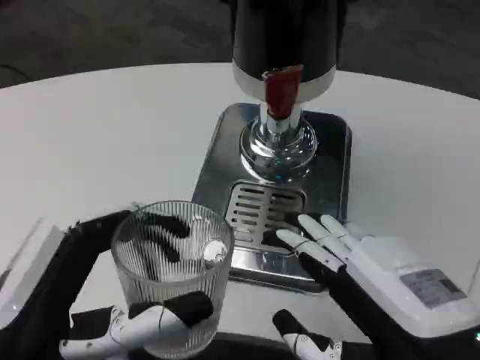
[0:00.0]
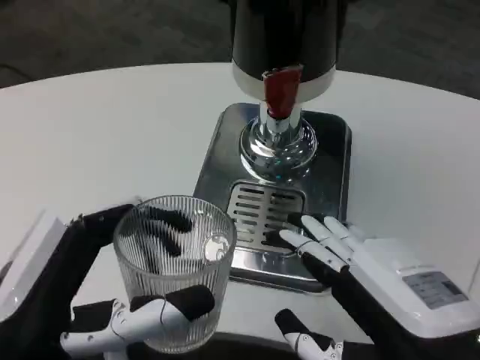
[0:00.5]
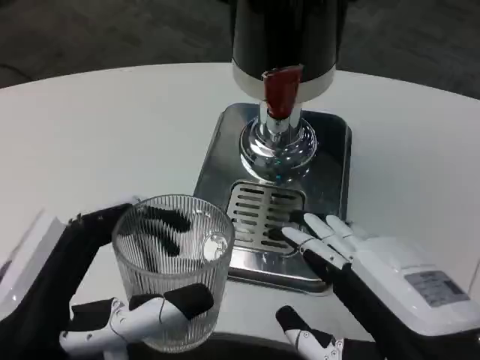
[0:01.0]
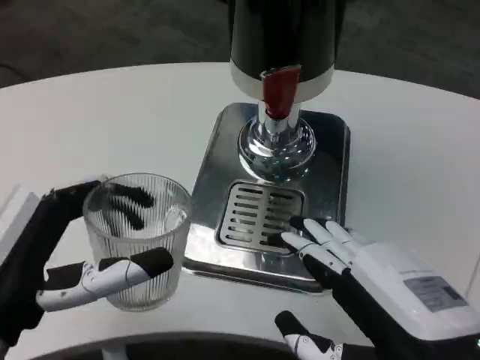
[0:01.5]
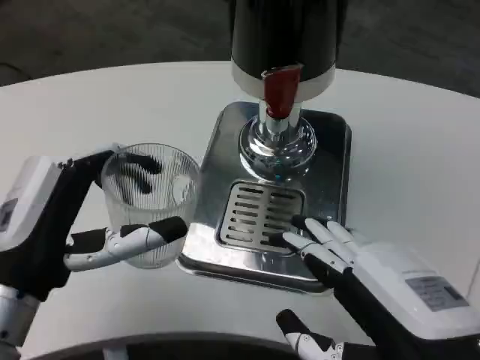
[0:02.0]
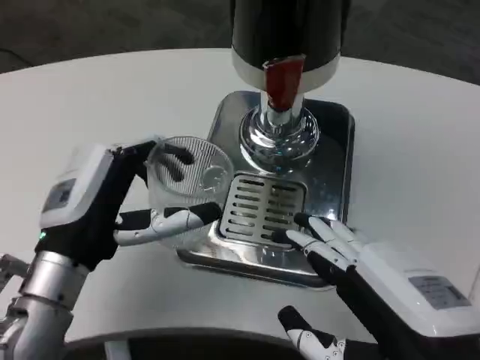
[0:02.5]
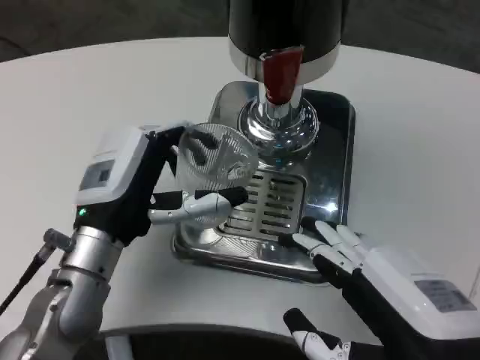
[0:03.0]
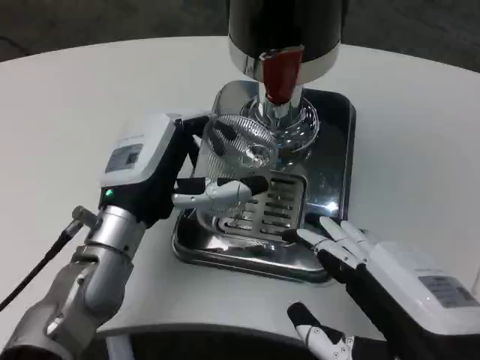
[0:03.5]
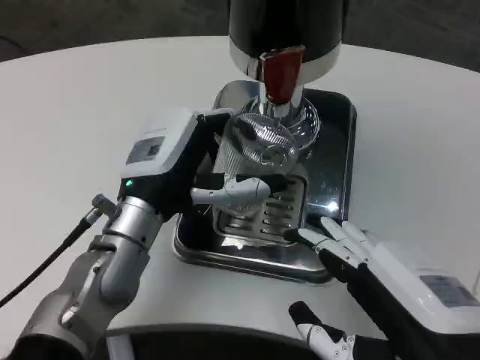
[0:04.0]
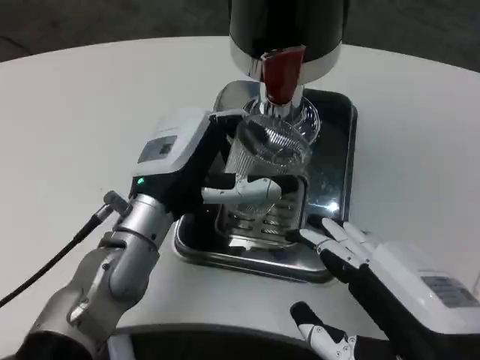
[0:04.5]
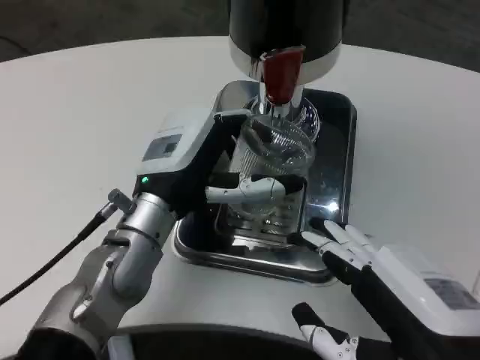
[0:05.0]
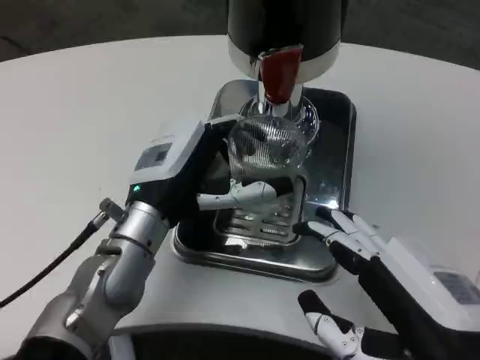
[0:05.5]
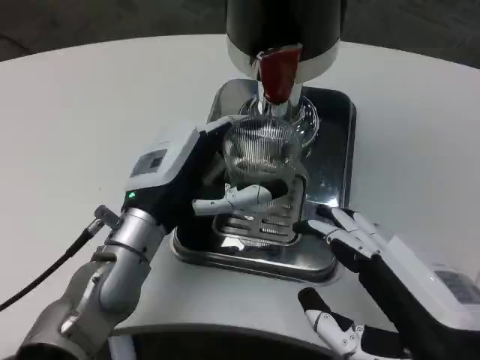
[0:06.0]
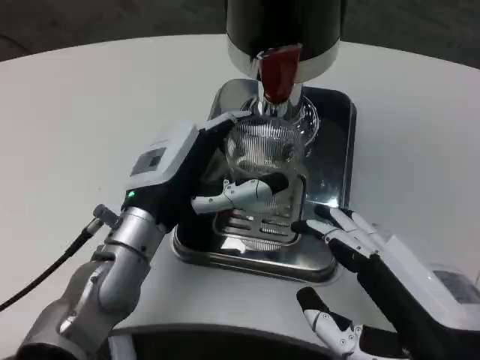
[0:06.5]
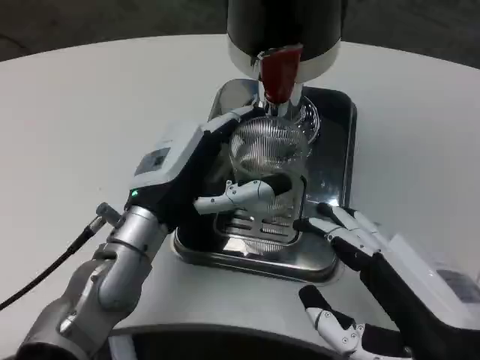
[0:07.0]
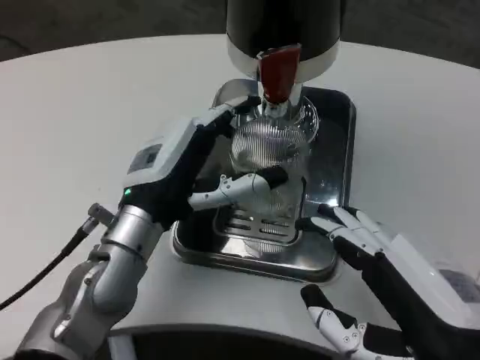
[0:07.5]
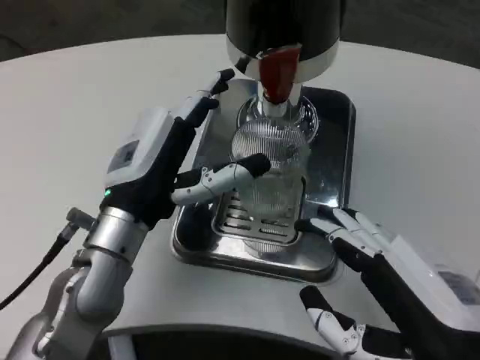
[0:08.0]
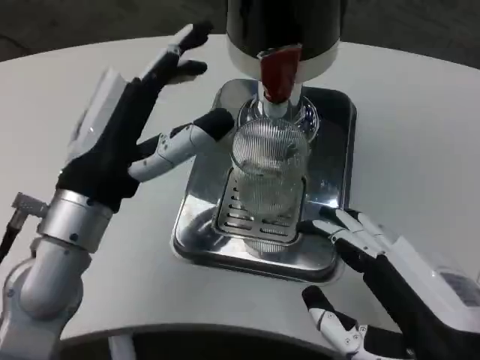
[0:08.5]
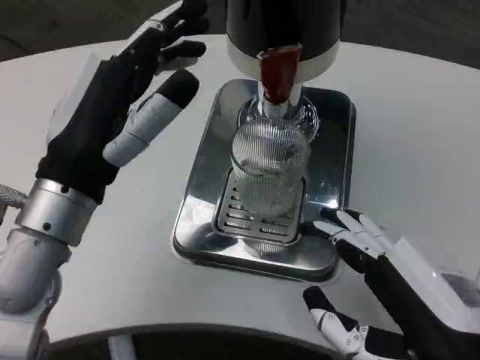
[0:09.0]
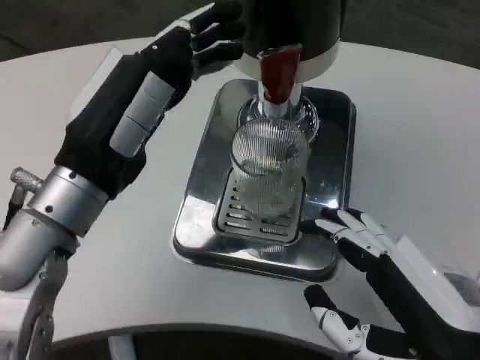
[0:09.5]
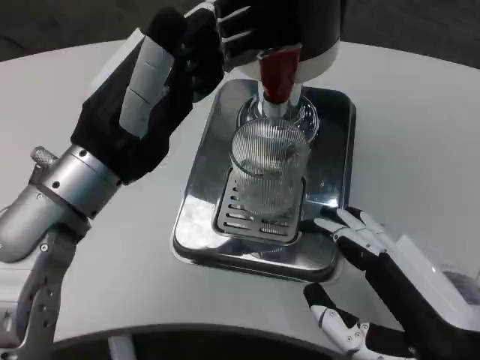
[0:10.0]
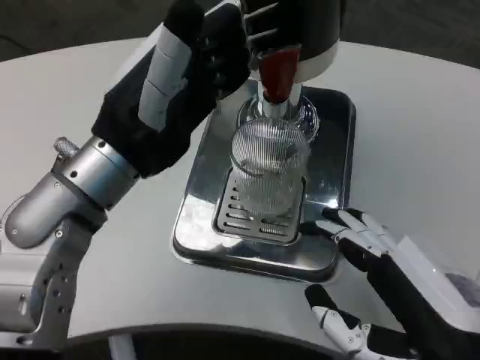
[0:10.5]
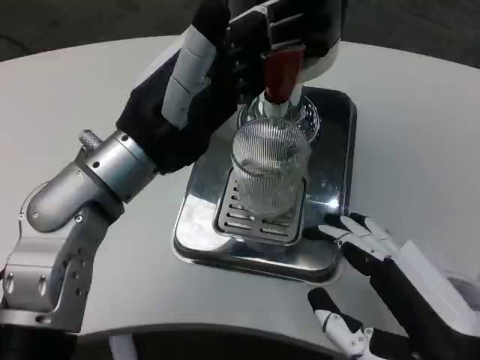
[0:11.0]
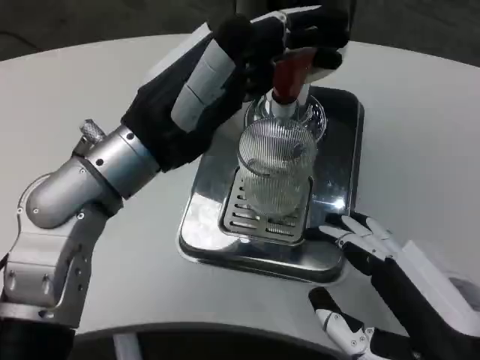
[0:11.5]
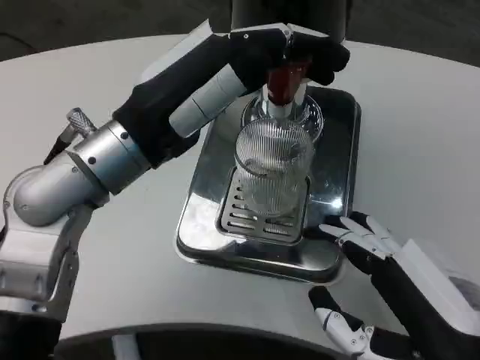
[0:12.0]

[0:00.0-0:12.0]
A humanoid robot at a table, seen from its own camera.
Task of the whole recording: Grasp the cup under the faucet to collect the drink, then remove the cup.
0:00.0 to 0:02.0: The left hand moves forward, roughly 10 cm.
0:02.0 to 0:04.0: The left hand goes about 15 cm forward and to the right.
0:06.0 to 0:08.0: There are only small adjustments of the hands.
0:08.0 to 0:10.0: The left hand goes about 10 cm upward.

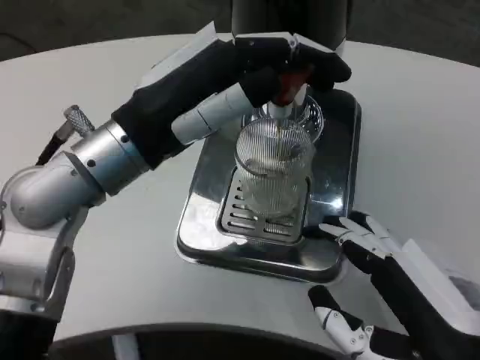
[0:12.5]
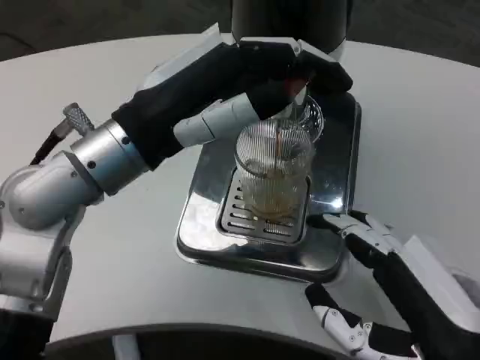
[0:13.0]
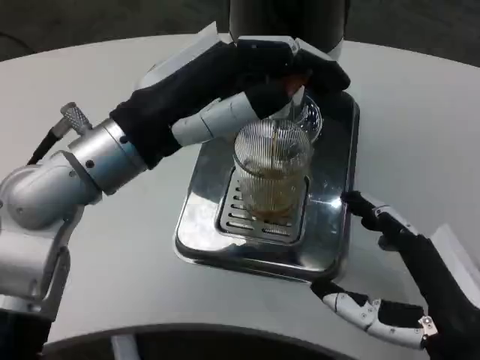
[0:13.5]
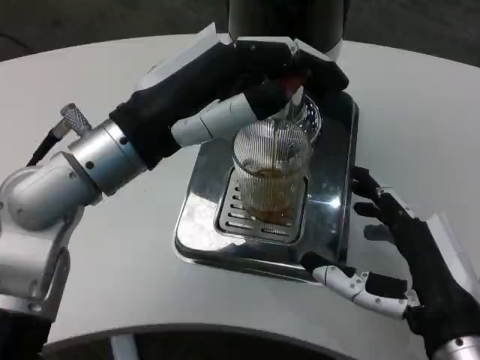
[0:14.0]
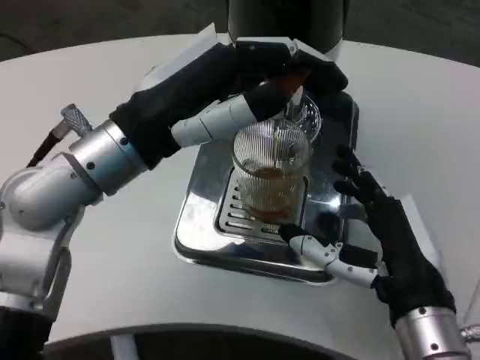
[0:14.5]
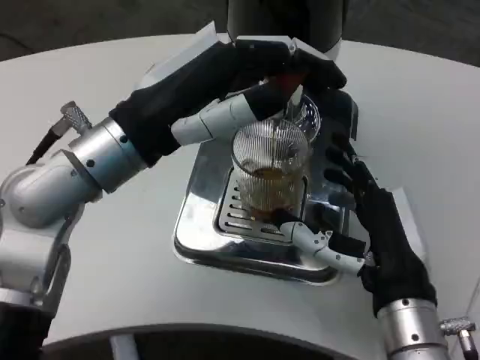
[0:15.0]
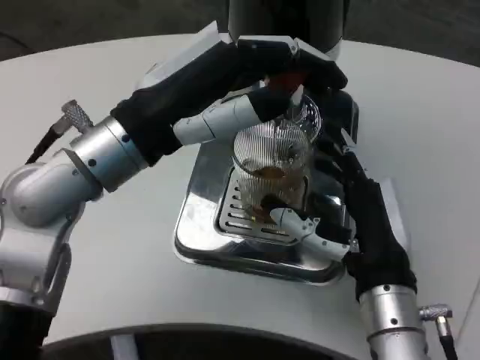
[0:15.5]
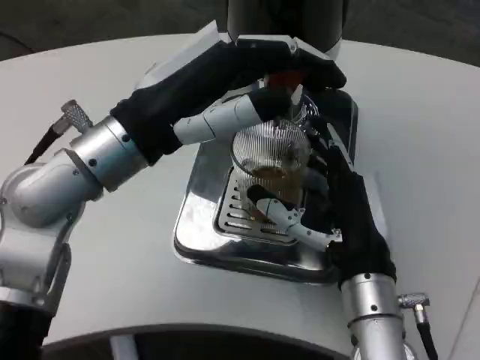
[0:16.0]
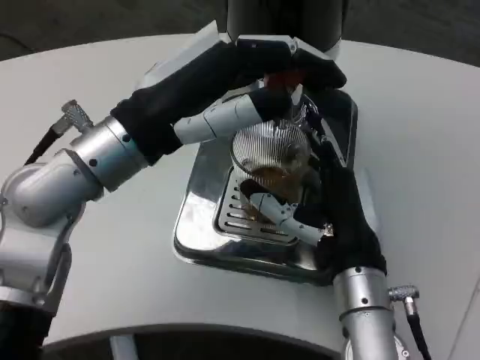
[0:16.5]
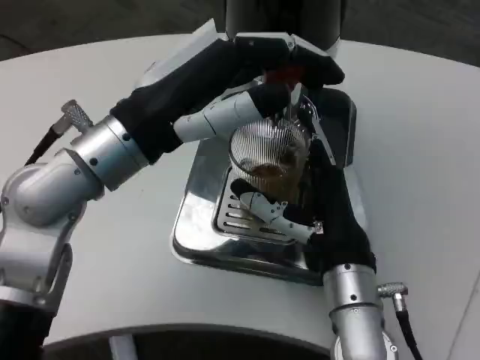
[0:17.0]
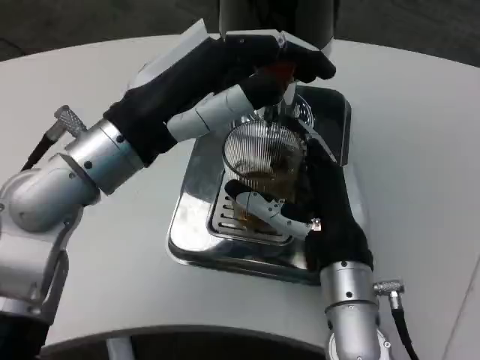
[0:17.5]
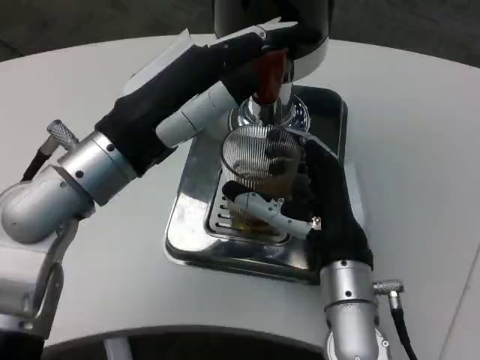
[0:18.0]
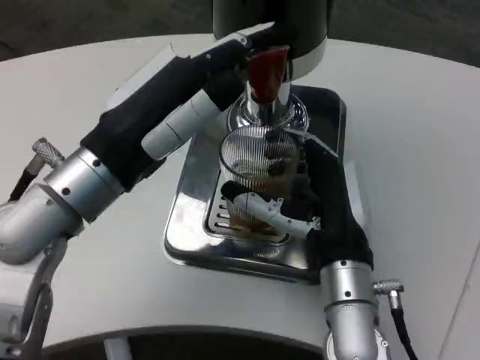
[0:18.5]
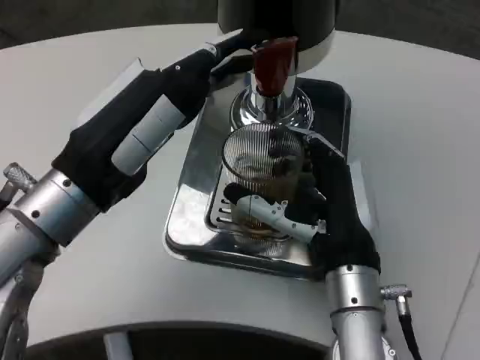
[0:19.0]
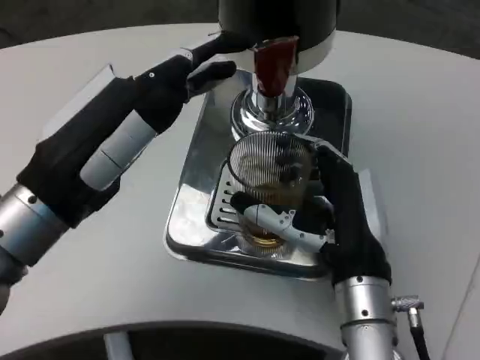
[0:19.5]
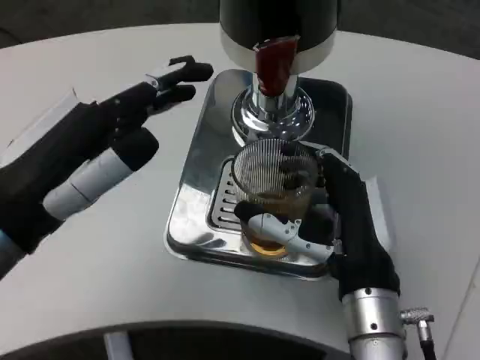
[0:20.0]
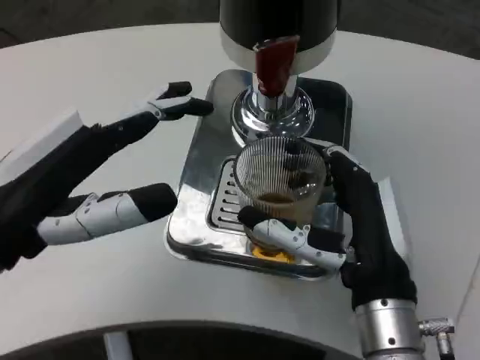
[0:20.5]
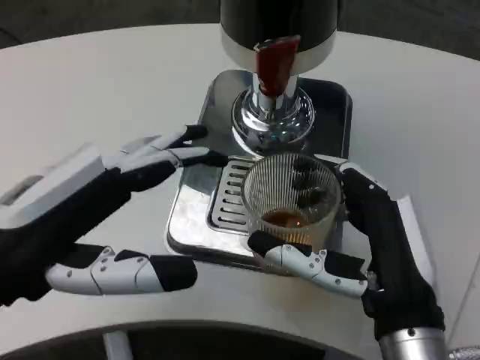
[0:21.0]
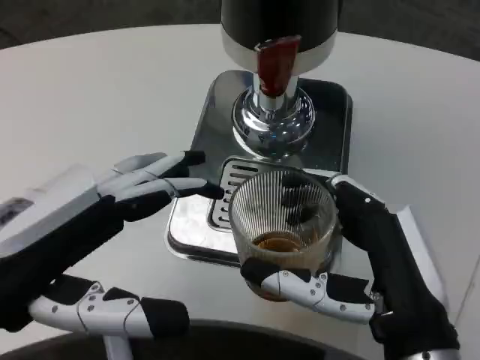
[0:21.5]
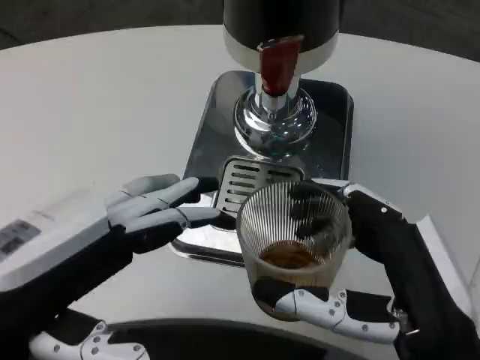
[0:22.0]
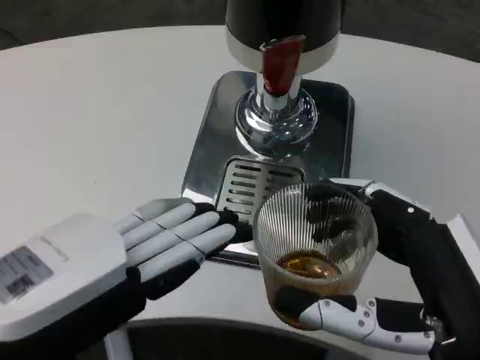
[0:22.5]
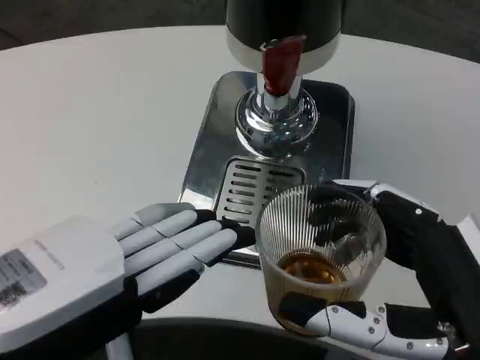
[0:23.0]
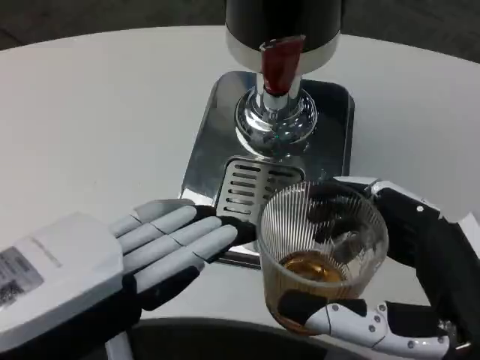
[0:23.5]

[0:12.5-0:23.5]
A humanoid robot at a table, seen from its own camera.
Task of the whole recording: Grasp the cup under the faucet to collect the drink, then remove the cup.
0:12.5 to 0:14.5: The right hand heads forward, covering approximately 10 cm.
0:14.5 to 0:16.0: The right hand is displaced forward by about 5 cm.
0:18.0 to 0:20.0: The left hand travels backward and to the left by approximately 10 cm.
0:20.0 to 0:21.5: Both hands travel together backward, about 5 cm.
0:21.5 to 0:23.5: The right hand moves about 5 cm, while the left hand is displaced backward by approximately 5 cm.

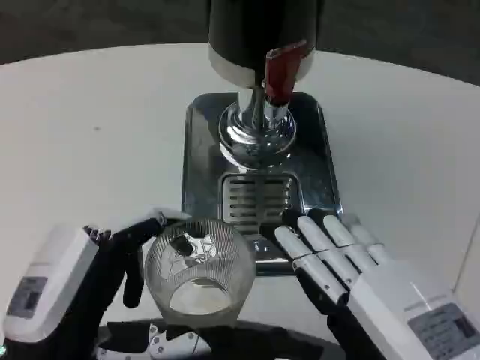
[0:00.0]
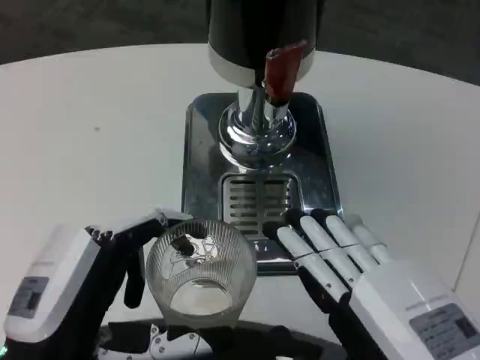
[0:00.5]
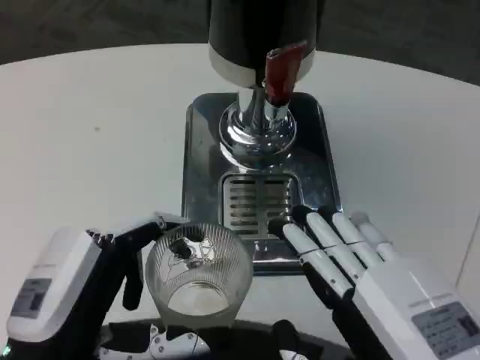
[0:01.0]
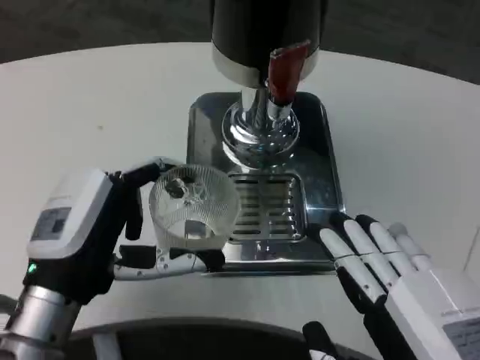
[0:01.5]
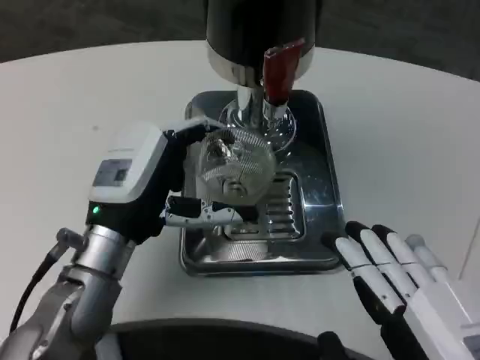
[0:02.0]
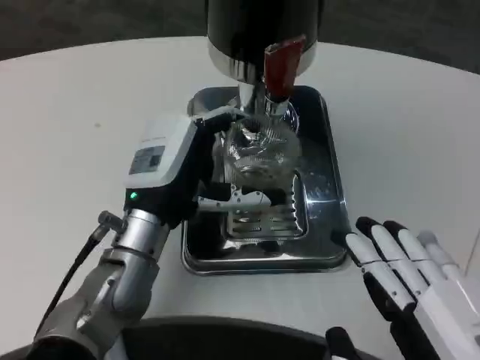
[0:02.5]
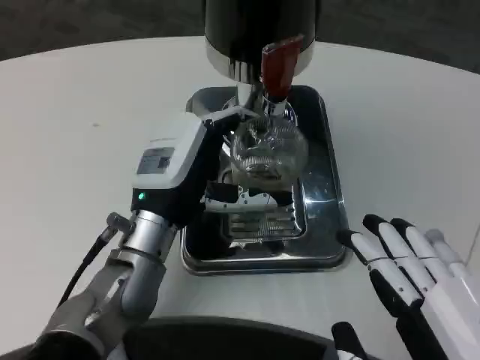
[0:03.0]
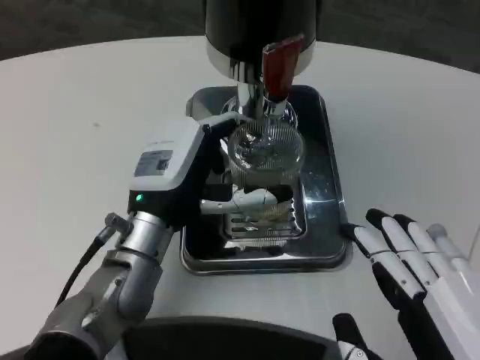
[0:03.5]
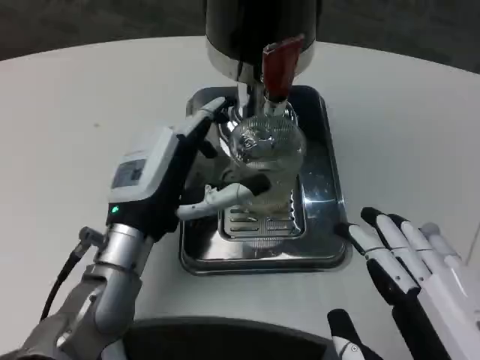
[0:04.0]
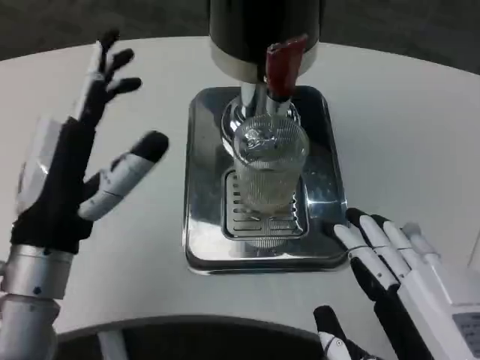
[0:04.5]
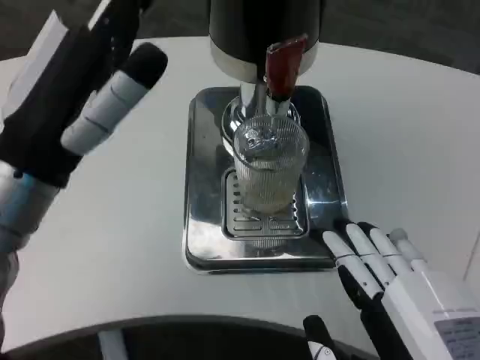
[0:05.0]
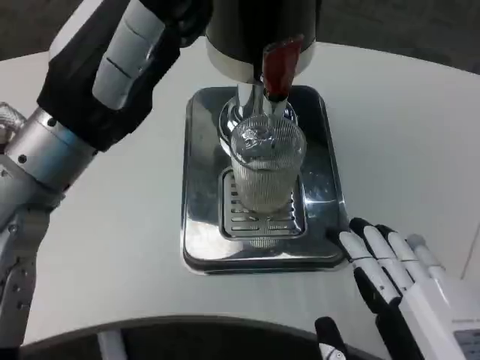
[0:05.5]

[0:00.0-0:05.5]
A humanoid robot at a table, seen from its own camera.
Task of the whole recording: Grasp the cup under the faucet to collect the drink, then remove the cup.
0:00.0 to 0:02.0: The left hand goes roughly 15 cm forward.
0:03.5 to 0:05.5: The left hand travels upward and backward by roughly 15 cm.
